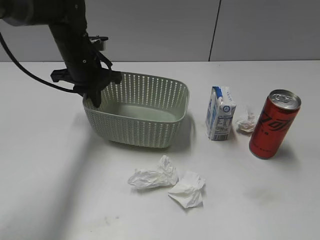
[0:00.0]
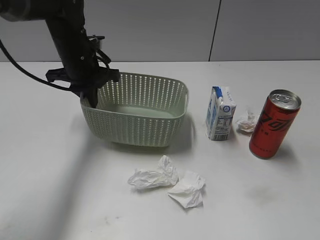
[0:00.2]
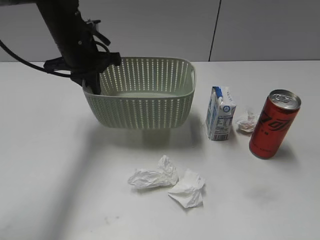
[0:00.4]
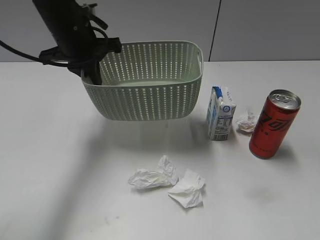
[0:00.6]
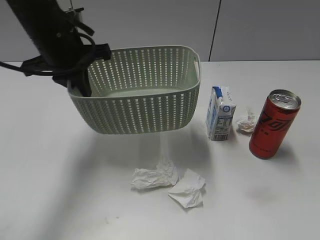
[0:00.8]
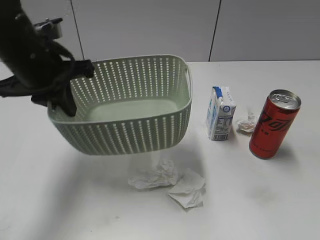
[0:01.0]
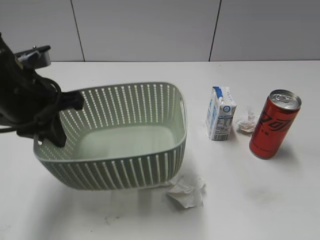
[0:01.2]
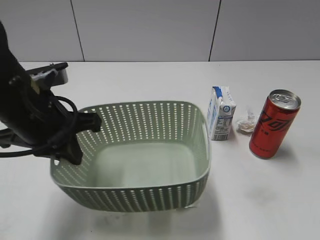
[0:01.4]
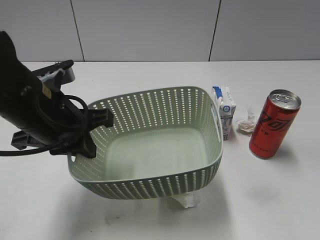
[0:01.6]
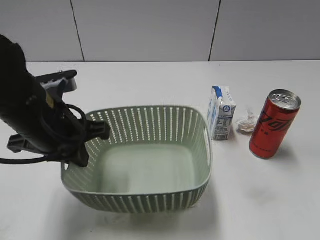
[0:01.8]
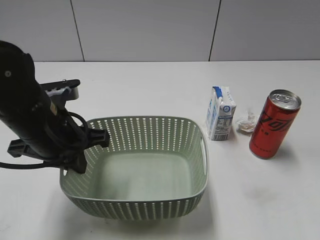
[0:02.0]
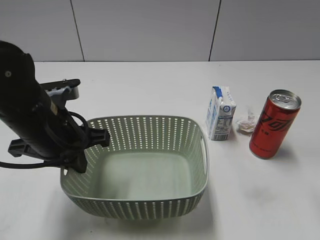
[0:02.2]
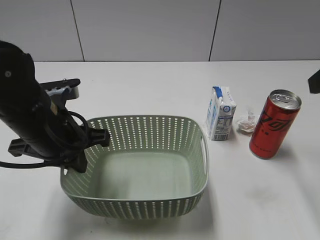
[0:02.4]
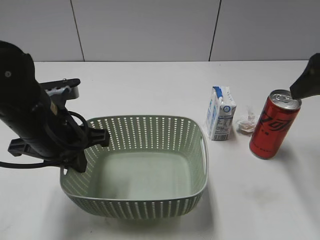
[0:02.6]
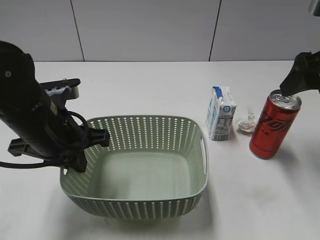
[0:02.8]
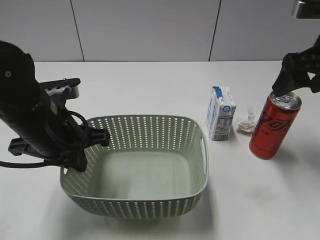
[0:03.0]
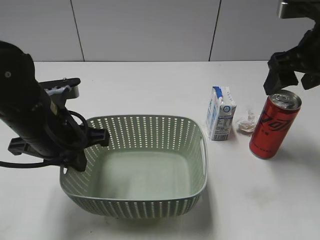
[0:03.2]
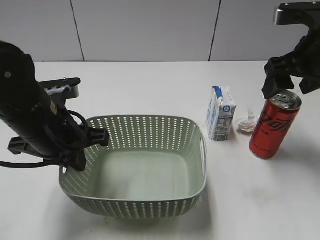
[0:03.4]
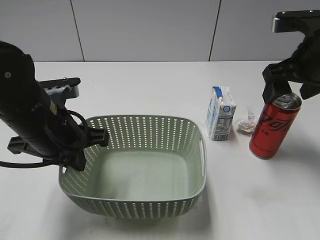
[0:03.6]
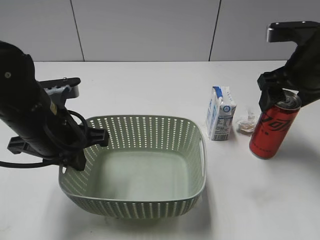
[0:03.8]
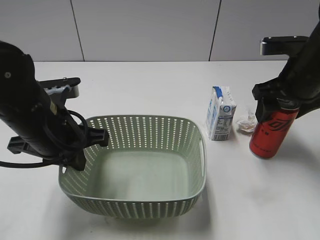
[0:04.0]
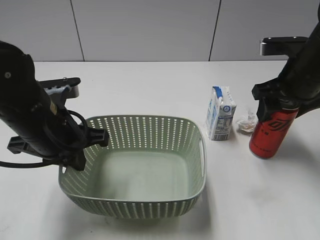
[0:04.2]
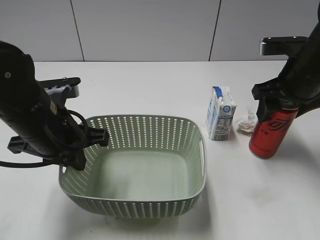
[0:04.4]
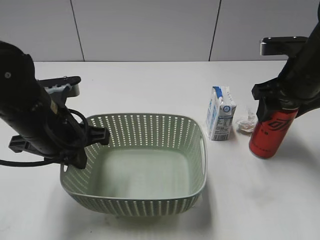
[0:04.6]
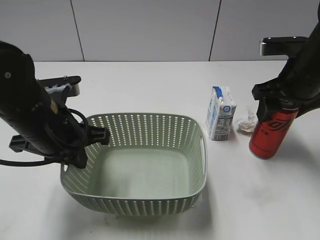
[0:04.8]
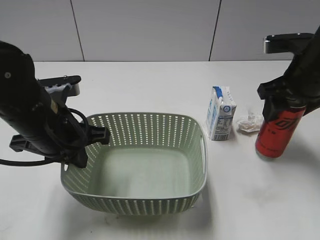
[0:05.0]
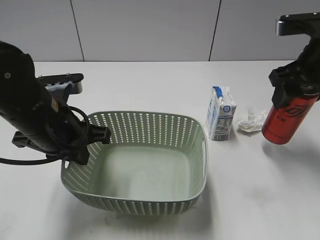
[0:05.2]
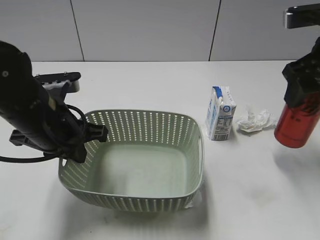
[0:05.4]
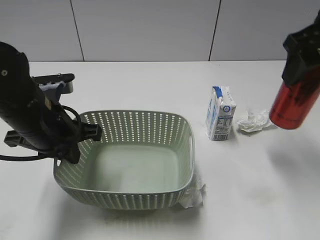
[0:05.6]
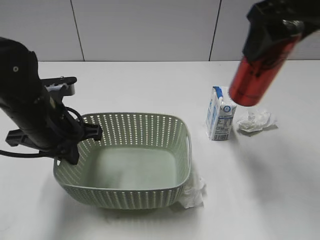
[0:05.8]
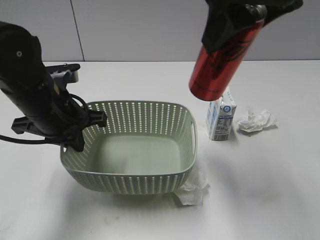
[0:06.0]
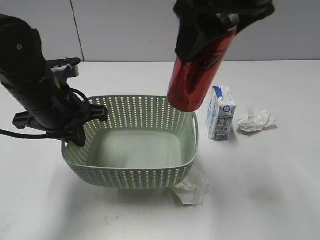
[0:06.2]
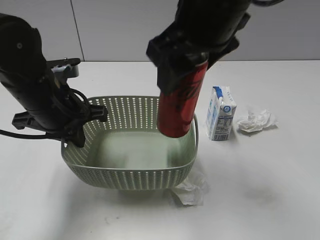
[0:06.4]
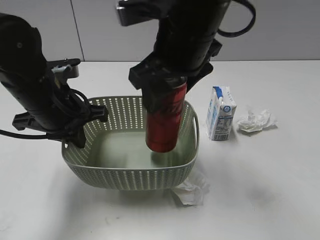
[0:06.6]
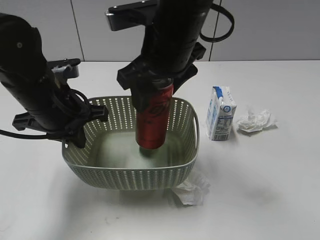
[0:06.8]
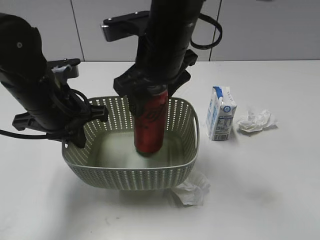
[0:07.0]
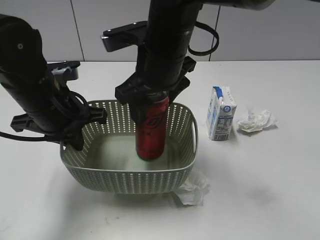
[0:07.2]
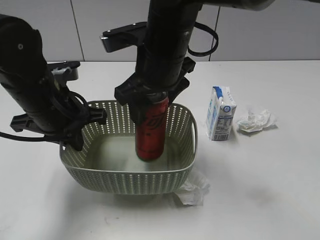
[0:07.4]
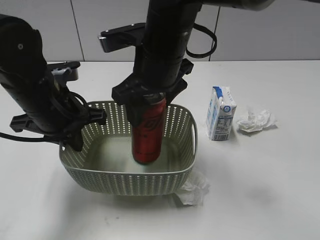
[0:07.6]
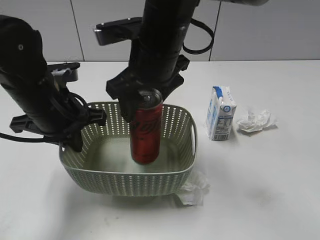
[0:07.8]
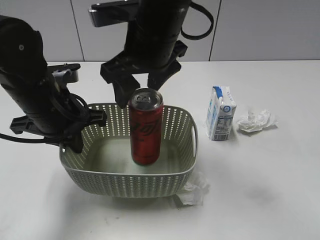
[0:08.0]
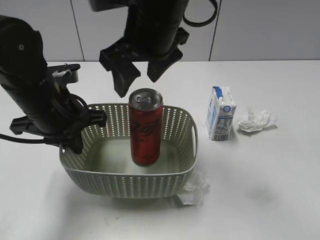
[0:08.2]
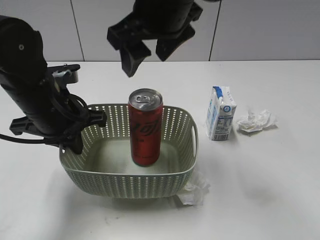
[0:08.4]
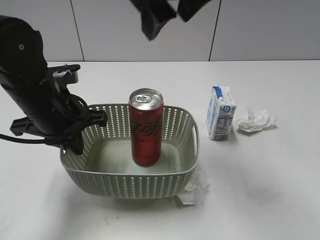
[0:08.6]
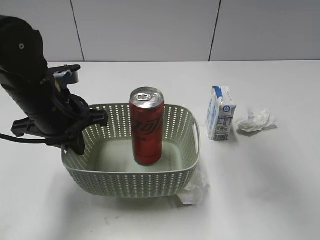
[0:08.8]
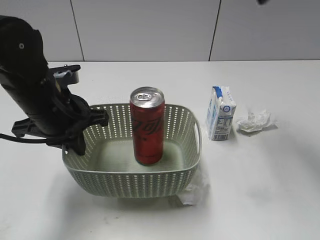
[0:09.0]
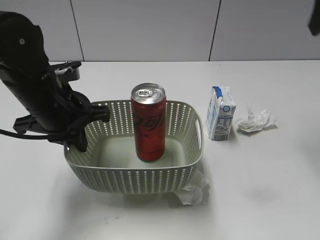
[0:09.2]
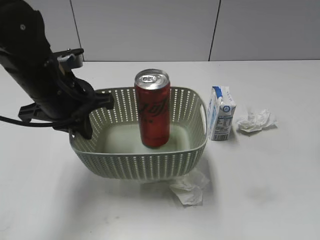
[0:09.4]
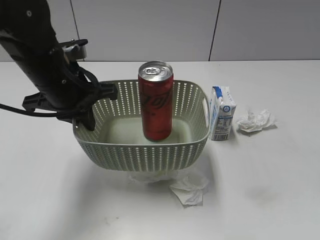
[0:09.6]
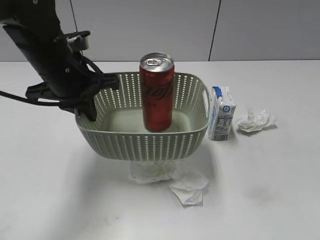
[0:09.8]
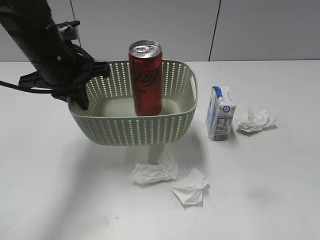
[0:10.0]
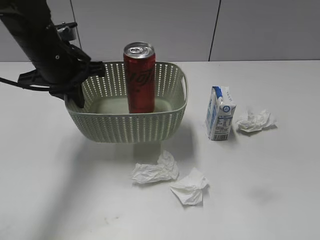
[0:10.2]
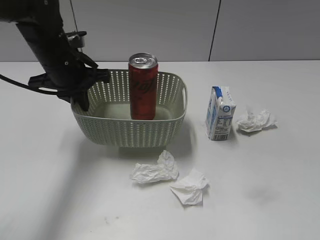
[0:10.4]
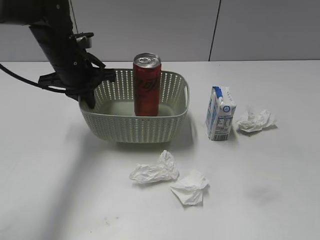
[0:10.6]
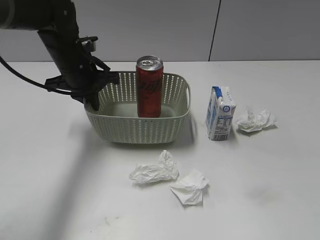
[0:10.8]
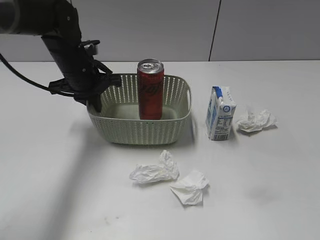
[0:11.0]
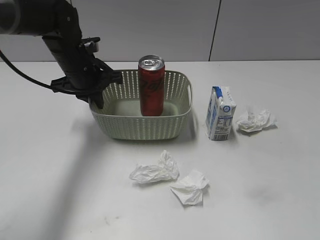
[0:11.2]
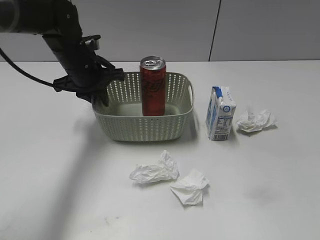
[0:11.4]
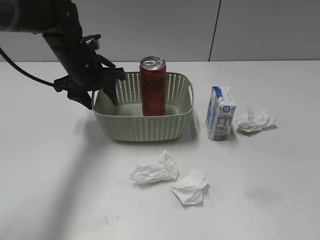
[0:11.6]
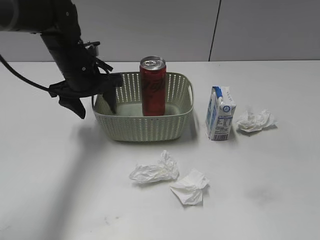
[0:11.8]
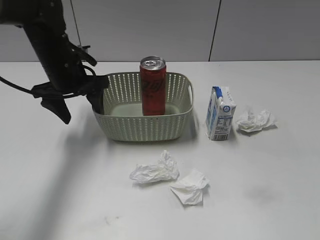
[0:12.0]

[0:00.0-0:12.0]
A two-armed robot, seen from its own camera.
Step, 0:00.0 to 0:02.2: Lift the basket with left gripper.
Step, 0:02.4 to 0:04.8: Grasp the cola can with right gripper.
Step, 0:05.0 to 0:07.8: Place the cola can in the basket with right gripper.
Step, 0:08.0 to 0:11.4: Place the basket on the table with left gripper.
0:00.0 to 0:01.6: The left gripper goes approximately 20 cm backward.
0:01.6 to 0:03.0: The right gripper moves forward, some 25 cm, and opens.
0:03.0 to 0:04.4: The right gripper travels downward by some 5 cm, and closes up.
0:04.4 to 0:06.0: The right gripper shifts some 20 cm upward and to the left.
0:06.0 to 0:07.6: The right gripper is displaced downward and to the left by roughly 20 cm.
0:07.6 to 0:09.0: The right gripper travels upward and to the right by approximately 25 cm, and opens up.
0:09.0 to 0:10.4: The left gripper heads forward, covering some 10 cm; the right gripper heads backward, downward and to the right, covering approximately 35 cm, and closes.
0:10.4 to 0:12.0: The left gripper opens its fingers.

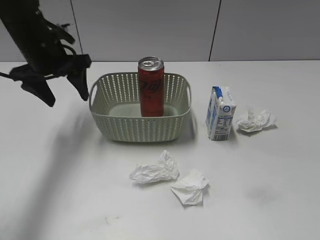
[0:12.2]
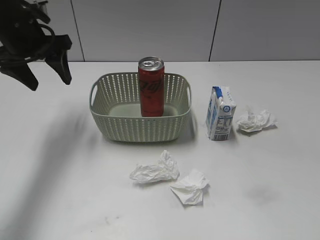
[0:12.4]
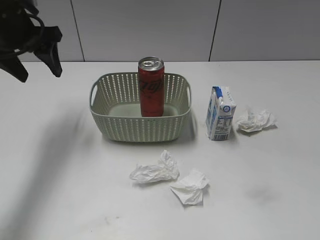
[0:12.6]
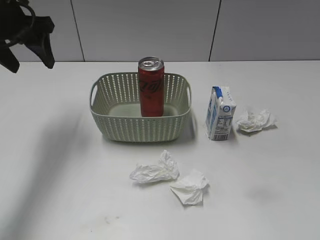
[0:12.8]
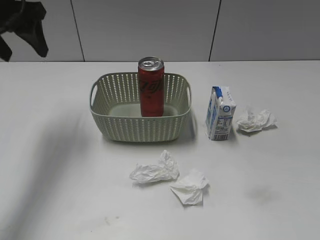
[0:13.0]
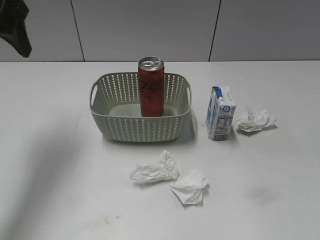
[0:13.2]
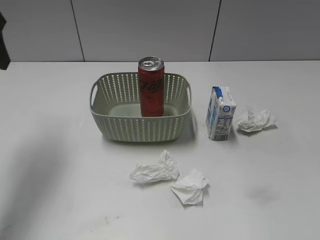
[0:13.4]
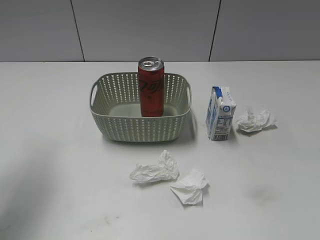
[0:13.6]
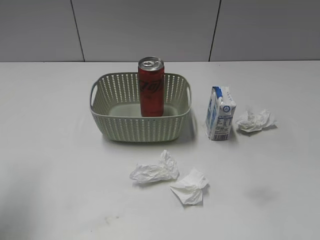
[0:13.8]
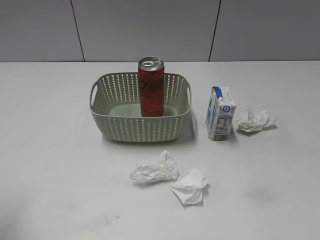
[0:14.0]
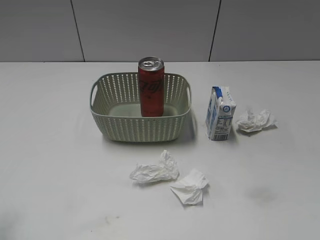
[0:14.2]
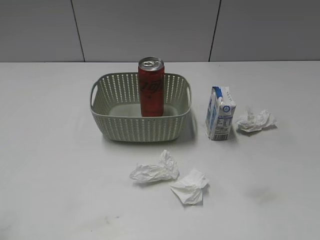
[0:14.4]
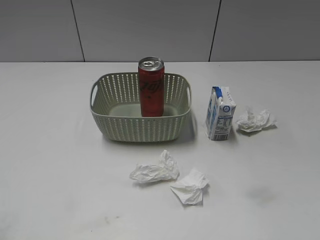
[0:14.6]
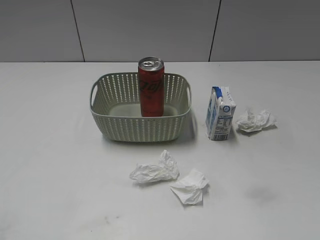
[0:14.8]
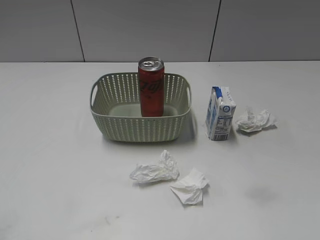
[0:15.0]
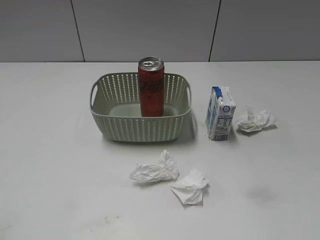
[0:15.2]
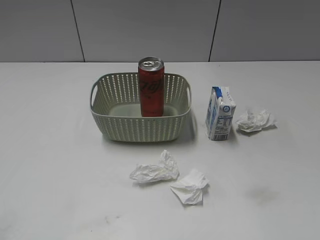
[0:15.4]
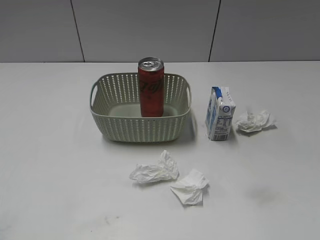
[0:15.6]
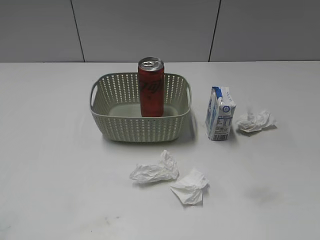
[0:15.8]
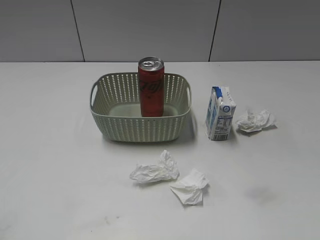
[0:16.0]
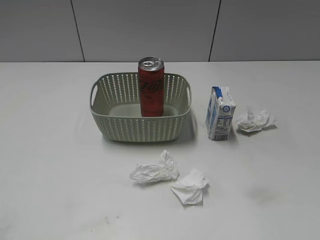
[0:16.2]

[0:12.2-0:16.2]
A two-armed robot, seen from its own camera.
0:12.2 to 0:13.6: The left gripper travels backward, upward and to the left by some 20 cm.
0:13.6 to 0:14.8: The left gripper is displaced backward by approximately 20 cm.

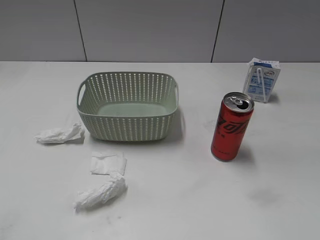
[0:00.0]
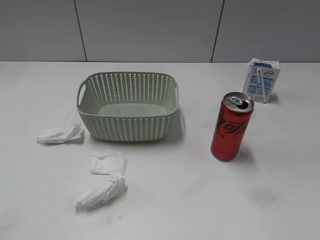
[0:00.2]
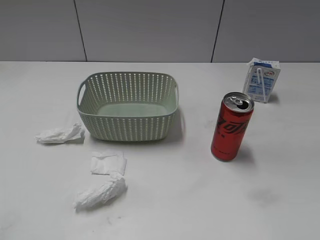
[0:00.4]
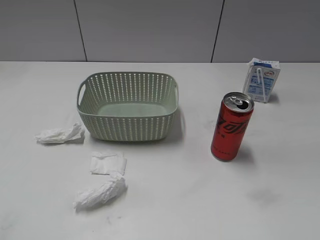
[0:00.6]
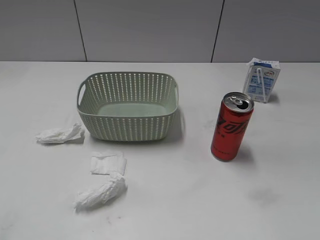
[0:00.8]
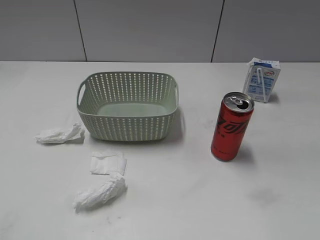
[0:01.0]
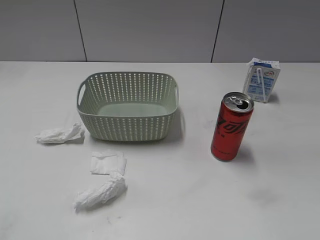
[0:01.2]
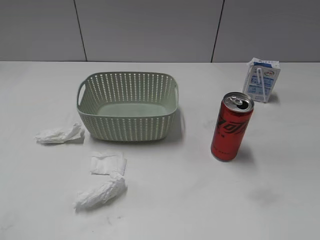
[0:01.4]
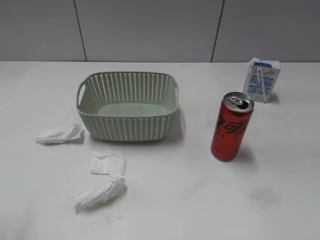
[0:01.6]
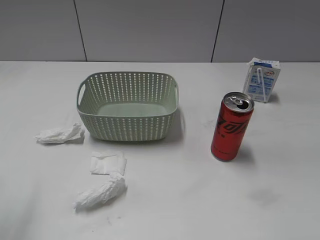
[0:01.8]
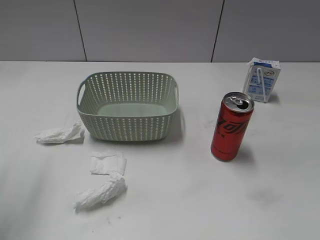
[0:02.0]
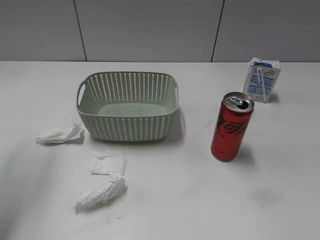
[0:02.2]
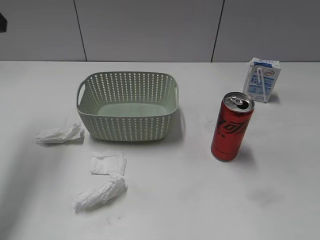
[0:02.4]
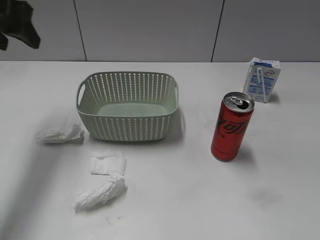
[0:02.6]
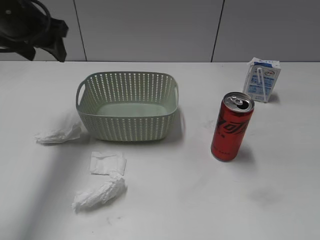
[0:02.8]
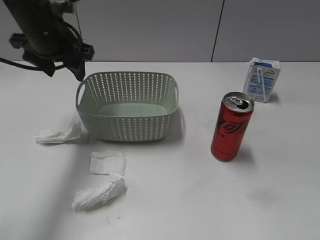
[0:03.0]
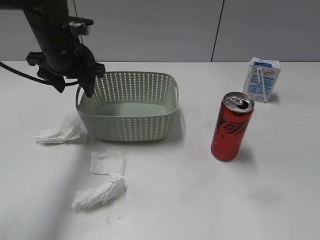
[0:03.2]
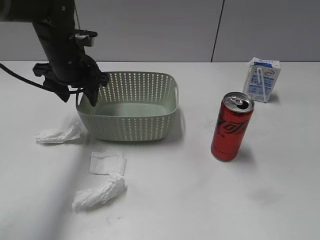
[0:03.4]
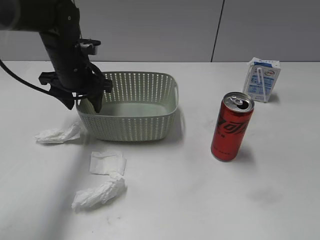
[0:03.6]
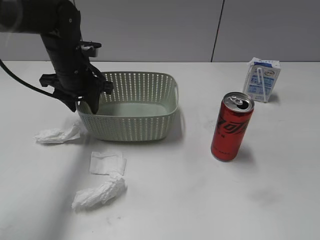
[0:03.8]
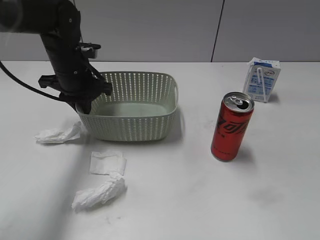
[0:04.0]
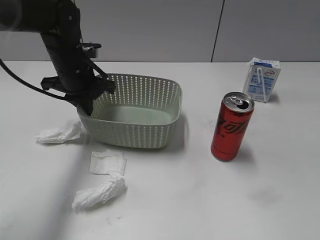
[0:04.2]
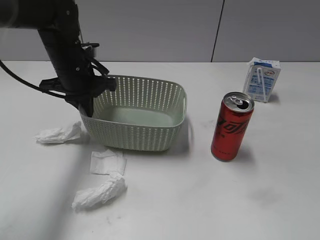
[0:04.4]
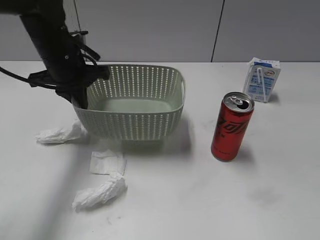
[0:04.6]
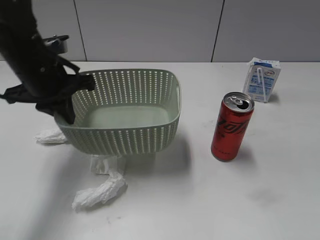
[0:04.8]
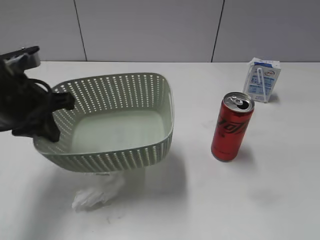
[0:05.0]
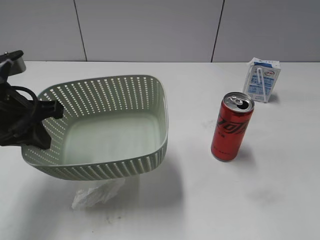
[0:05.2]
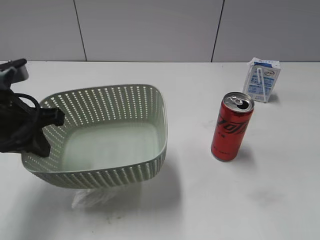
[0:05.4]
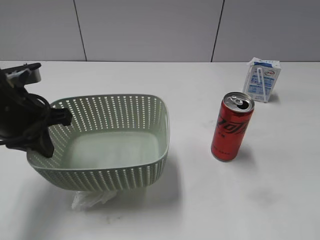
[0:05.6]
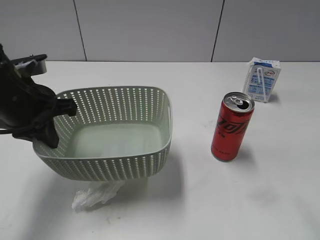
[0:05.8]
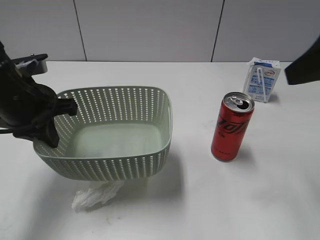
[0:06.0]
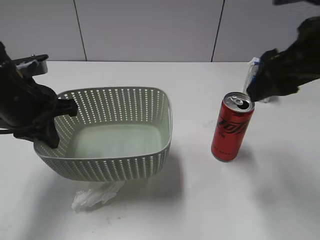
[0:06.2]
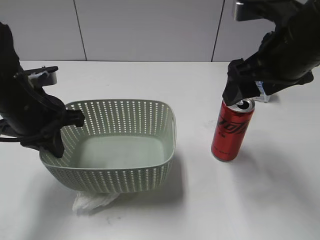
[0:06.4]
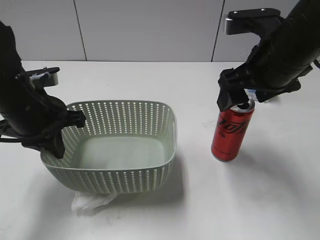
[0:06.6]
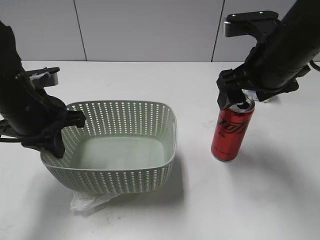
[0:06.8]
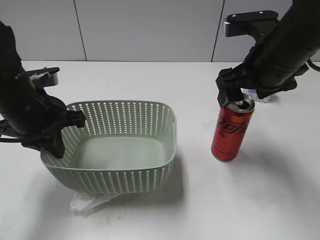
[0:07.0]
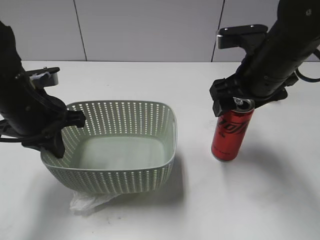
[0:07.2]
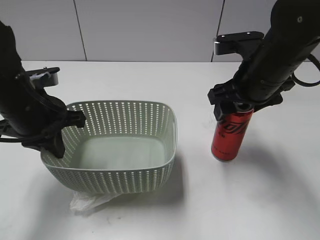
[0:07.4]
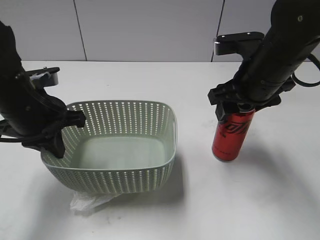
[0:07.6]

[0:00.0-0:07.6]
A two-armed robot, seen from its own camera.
Step, 0:02.4 to 0:04.0: Grasp the basket with left gripper.
Step, 0:04.2 to 0:05.8: Lift the basket with left gripper.
0:01.6 to 0:03.0: The left gripper is displaced forward and to the right by some 30 cm.
0:03.0 to 0:04.6: The left gripper closes up.
0:04.6 to 0:06.0: The left gripper heads backward, covering about 10 cm; the right gripper shifts approximately 20 cm forward, and opens its fingers.
0:06.0 to 0:07.6: The right gripper is displaced downward, forward and to the left by about 15 cm, and closes up.
